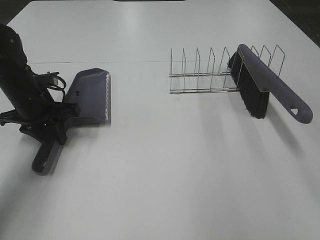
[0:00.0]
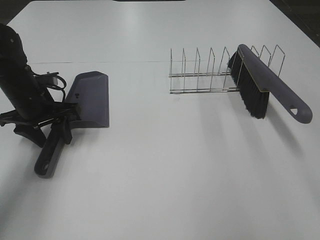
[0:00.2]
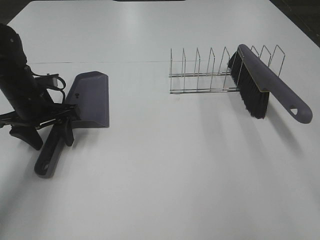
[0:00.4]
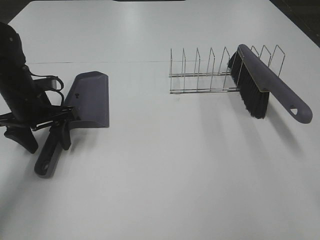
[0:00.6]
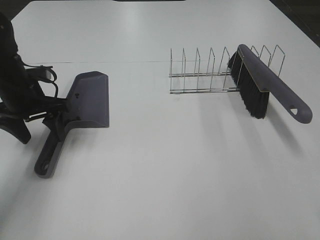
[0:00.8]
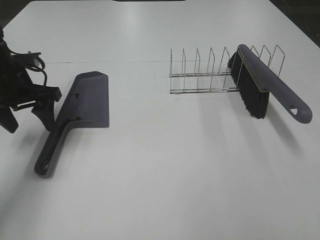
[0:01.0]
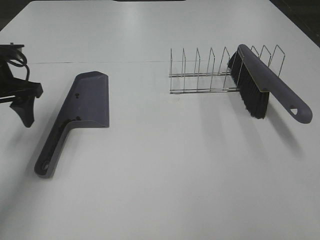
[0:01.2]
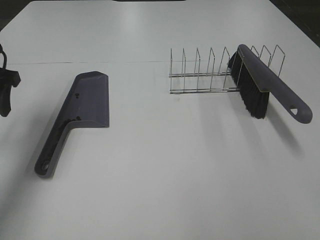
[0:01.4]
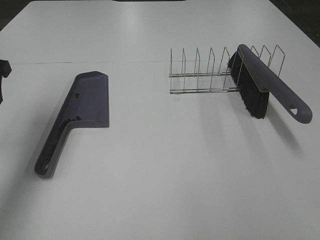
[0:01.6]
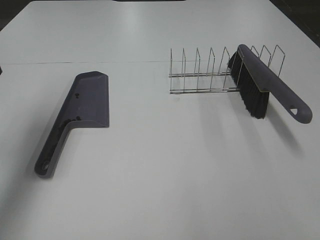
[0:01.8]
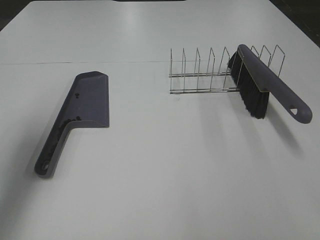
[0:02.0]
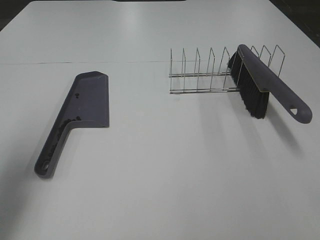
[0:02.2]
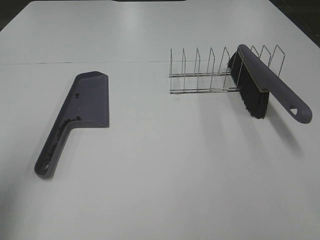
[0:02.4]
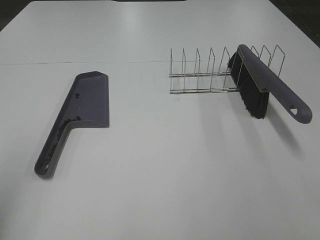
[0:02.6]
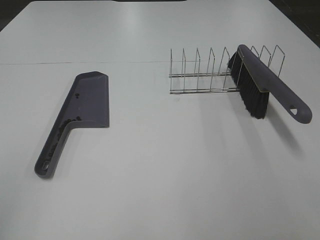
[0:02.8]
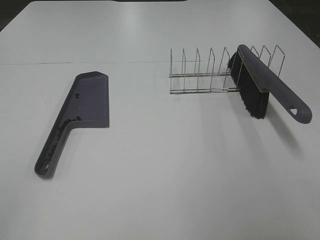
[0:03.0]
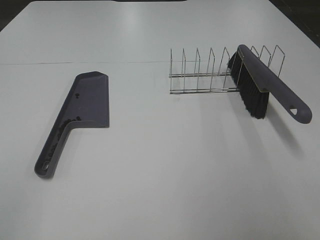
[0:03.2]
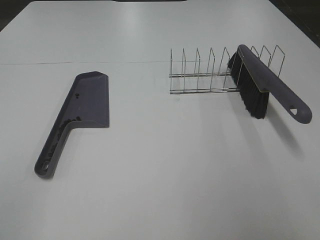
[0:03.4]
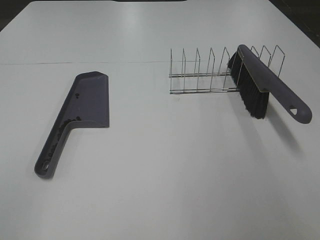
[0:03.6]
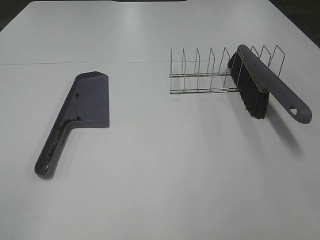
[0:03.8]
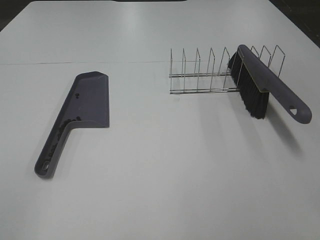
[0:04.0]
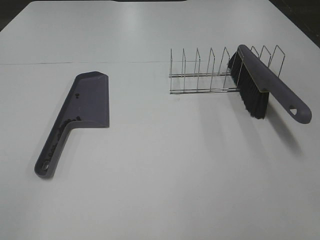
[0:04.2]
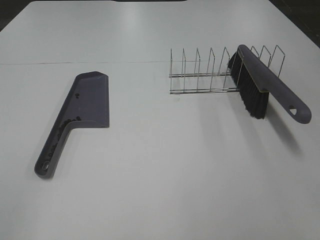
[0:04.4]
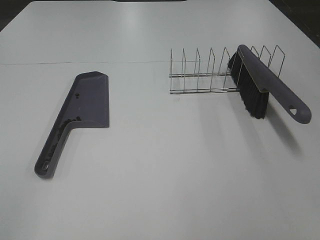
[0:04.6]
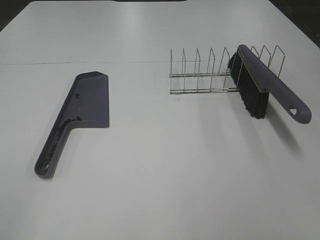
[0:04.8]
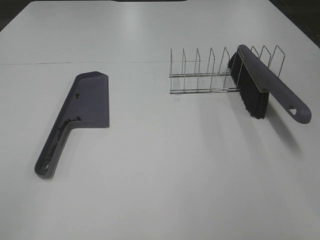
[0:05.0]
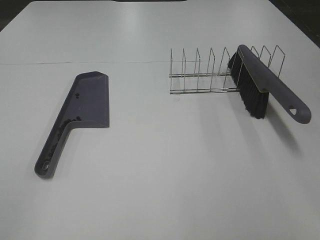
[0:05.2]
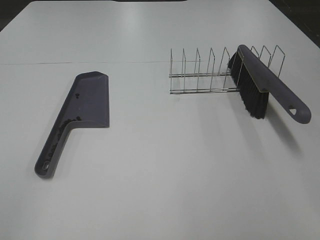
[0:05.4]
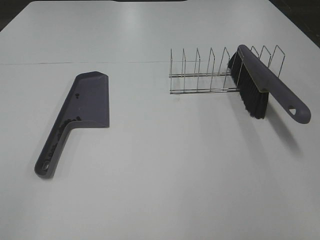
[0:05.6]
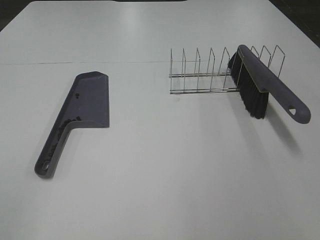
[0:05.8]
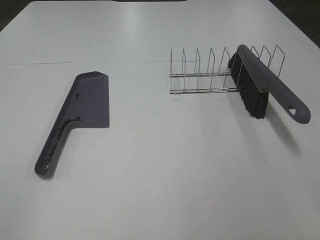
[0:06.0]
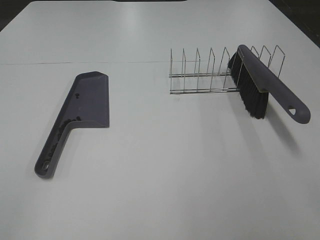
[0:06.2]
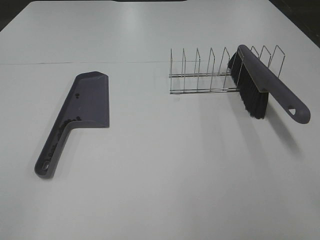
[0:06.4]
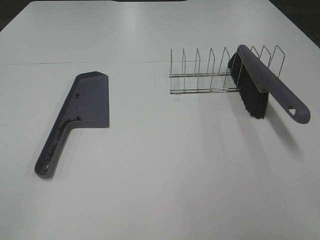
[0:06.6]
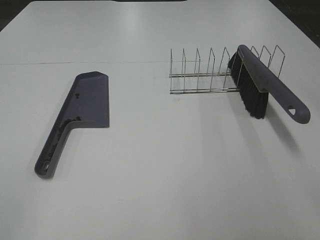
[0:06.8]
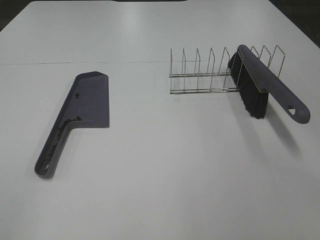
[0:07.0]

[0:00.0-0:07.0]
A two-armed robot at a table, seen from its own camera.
Task of the whole recording: Sweep Coffee Bean.
0:00.0 to 0:01.4: The left gripper moves upward and to the left, approximately 15 cm, and opens.
0:01.4 to 0:02.8: The left gripper shifts approximately 30 cm backward.
0:04.2 to 0:07.0: The two grippers keep their place.
